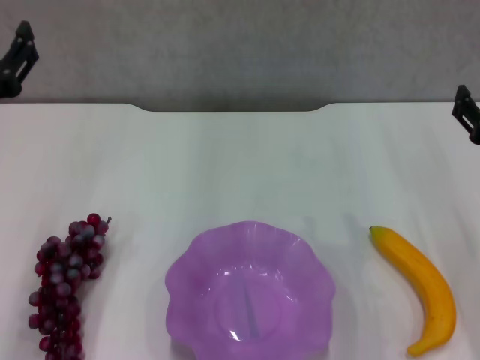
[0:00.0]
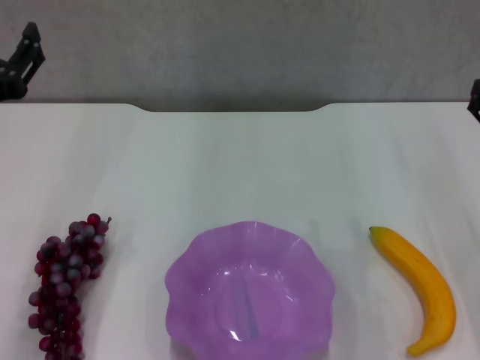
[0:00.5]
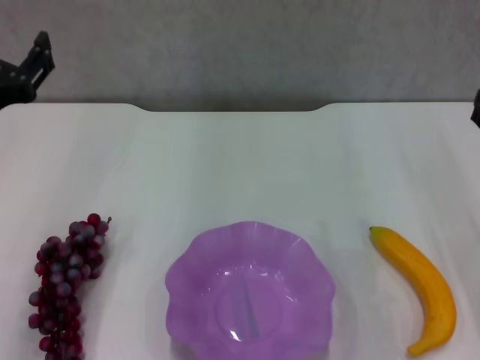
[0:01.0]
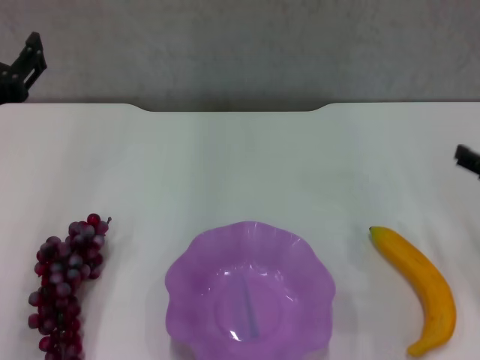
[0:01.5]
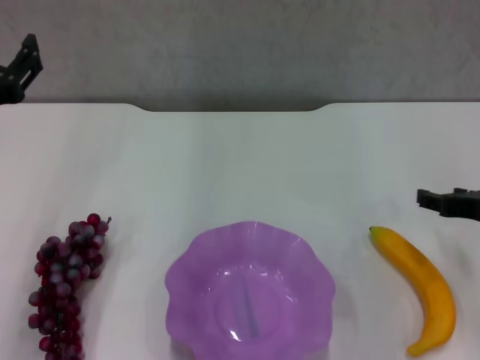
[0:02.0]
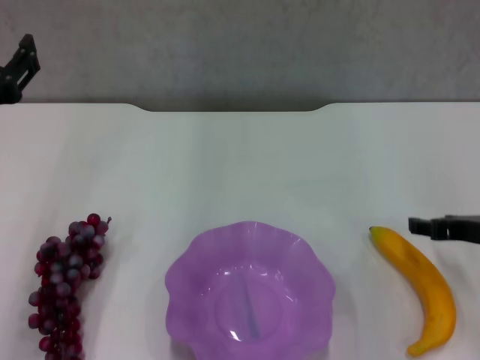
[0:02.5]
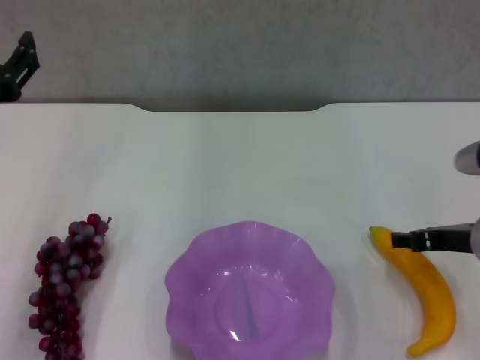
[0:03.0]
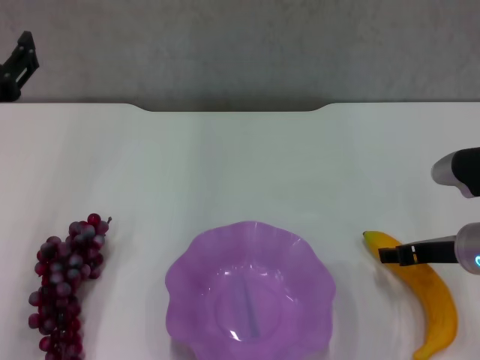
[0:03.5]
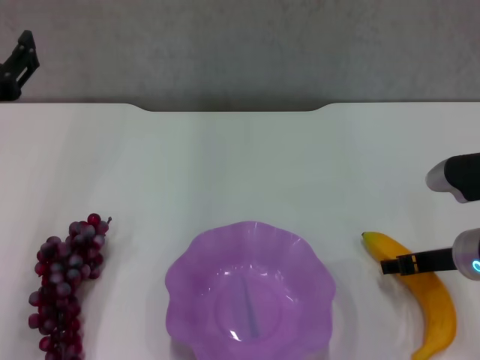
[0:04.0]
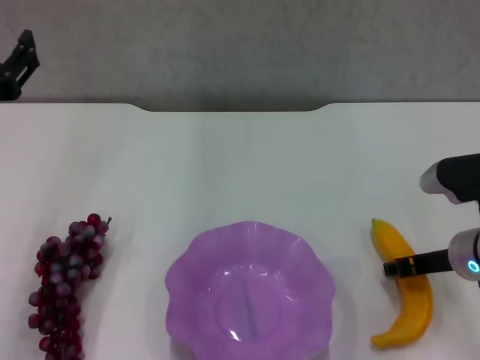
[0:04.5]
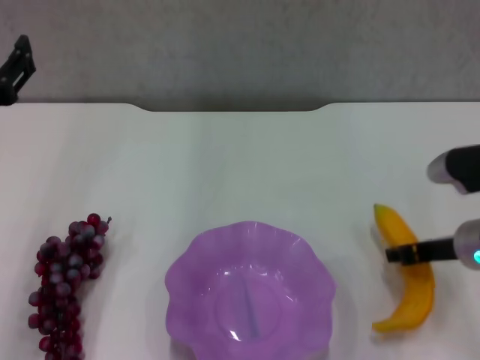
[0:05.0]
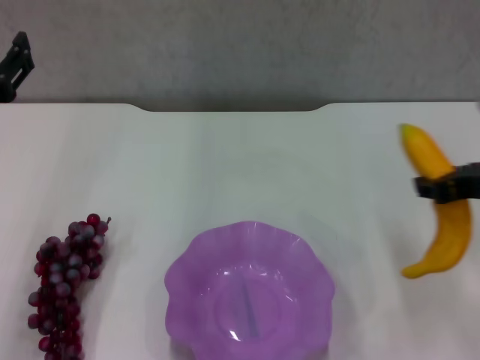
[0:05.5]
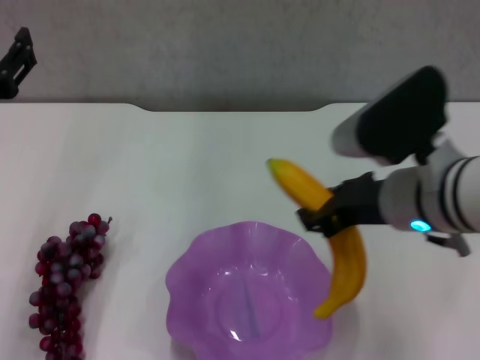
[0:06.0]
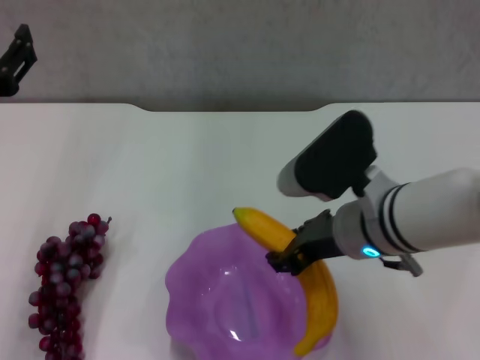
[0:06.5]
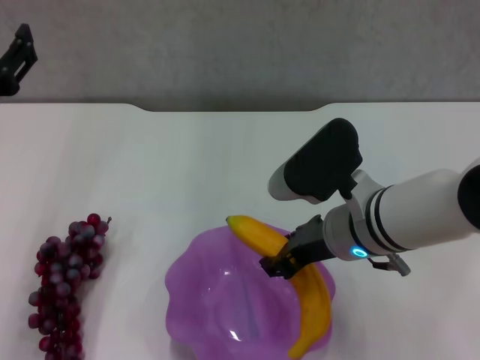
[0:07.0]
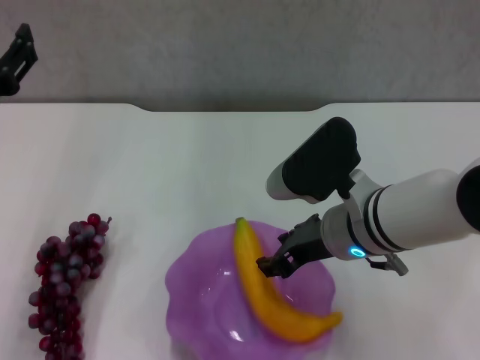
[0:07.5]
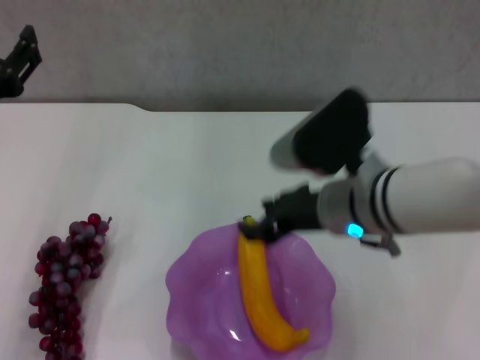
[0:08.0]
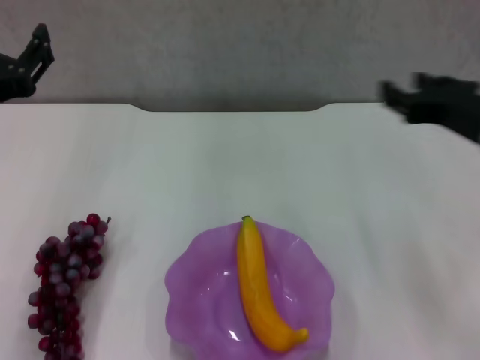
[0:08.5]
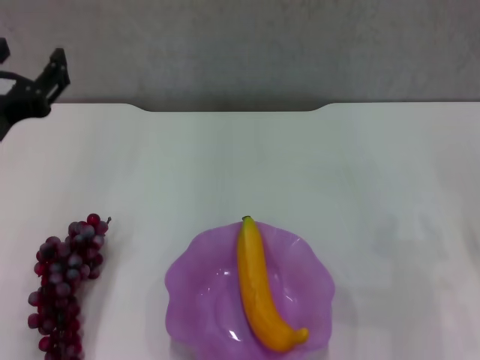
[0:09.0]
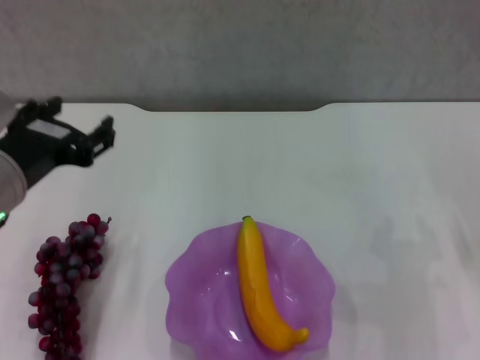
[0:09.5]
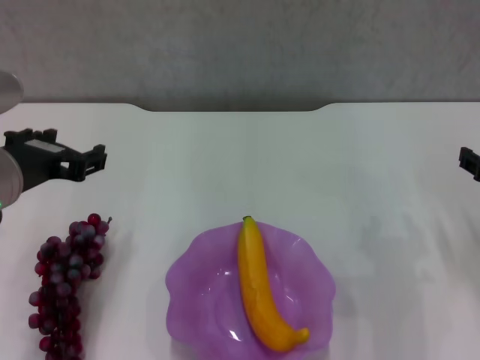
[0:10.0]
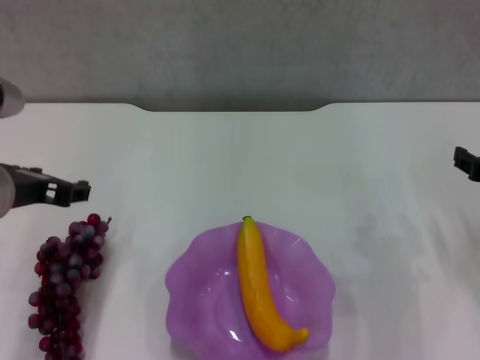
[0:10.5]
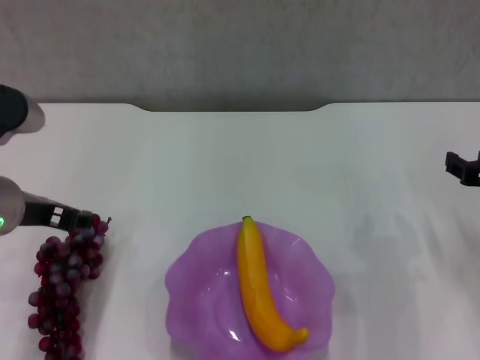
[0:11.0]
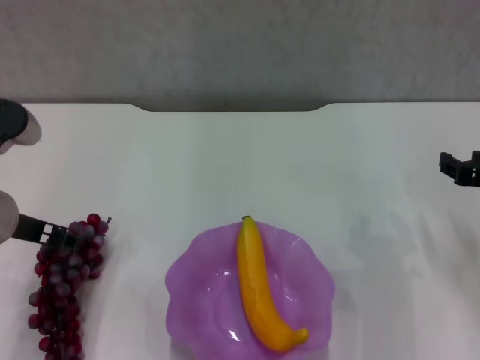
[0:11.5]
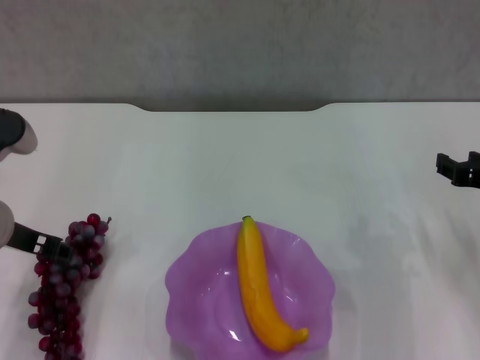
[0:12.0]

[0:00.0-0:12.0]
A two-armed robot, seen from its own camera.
Step, 0:00.0 to 0:04.0: Grasp the banana with right gripper.
Step, 0:05.0 to 0:07.5: Place the banana in the purple plate with right gripper.
0:02.0 to 0:04.0: The right gripper changes place by approximately 5 cm.
0:04.0 to 0:06.0: The right gripper shifts about 15 cm upward and to the left, and closes.
0:06.0 to 0:08.0: The right gripper changes place by roughly 5 cm.
0:08.0 to 0:10.0: The right gripper travels to the right by about 20 cm.
0:10.0 to 0:12.0: The left gripper ends up roughly 5 cm from where it was.

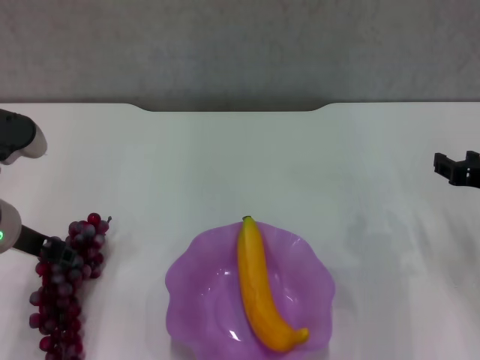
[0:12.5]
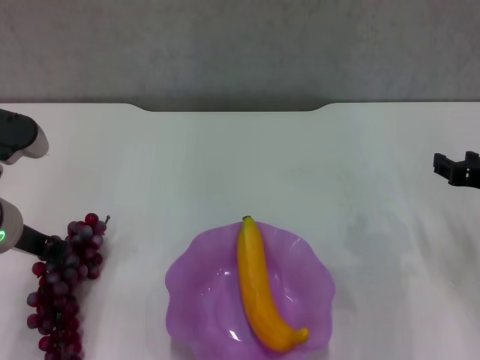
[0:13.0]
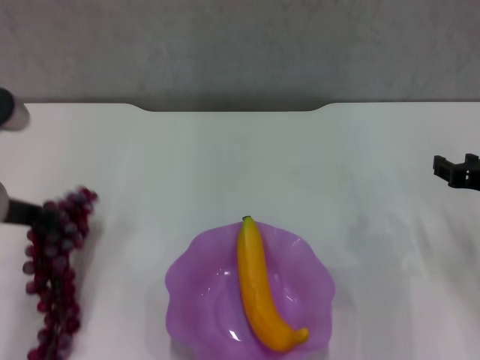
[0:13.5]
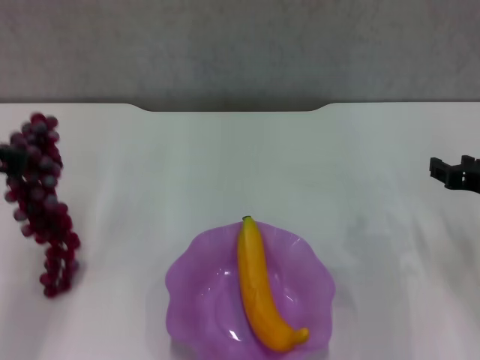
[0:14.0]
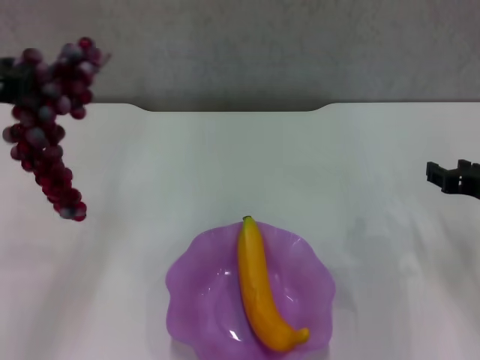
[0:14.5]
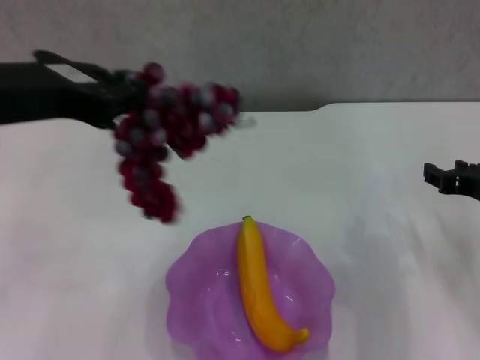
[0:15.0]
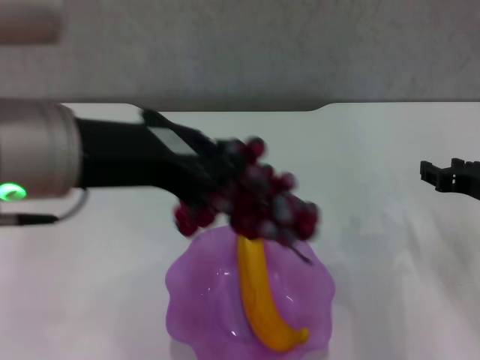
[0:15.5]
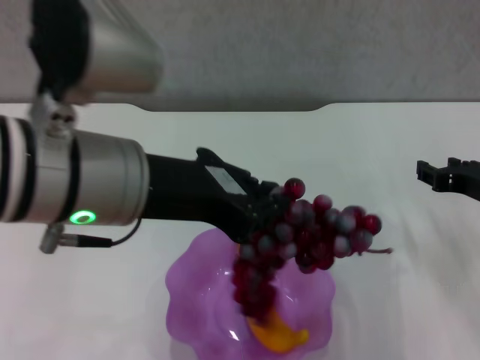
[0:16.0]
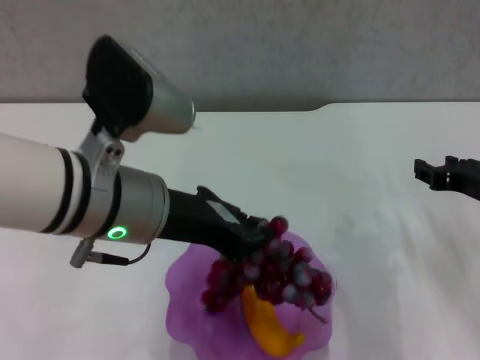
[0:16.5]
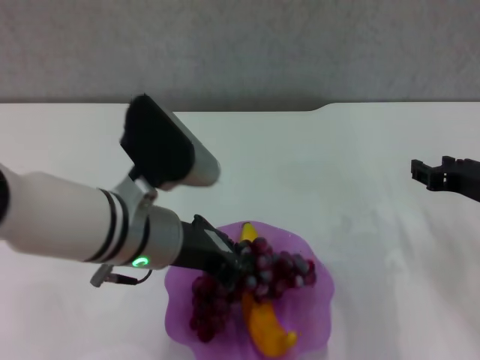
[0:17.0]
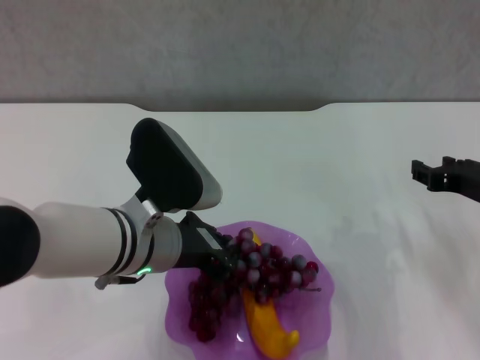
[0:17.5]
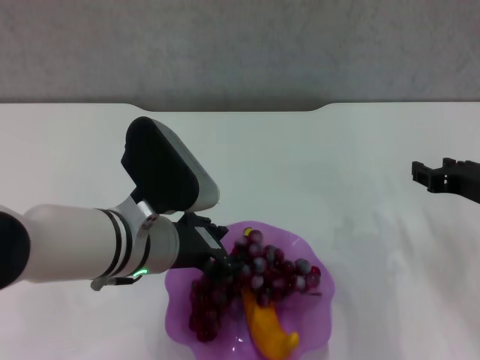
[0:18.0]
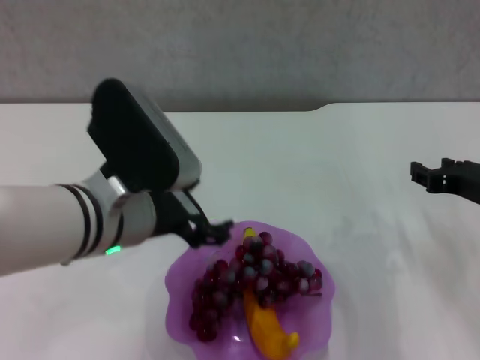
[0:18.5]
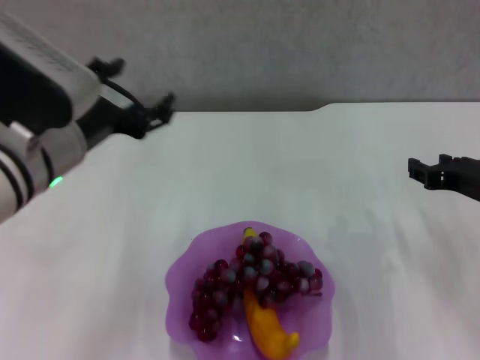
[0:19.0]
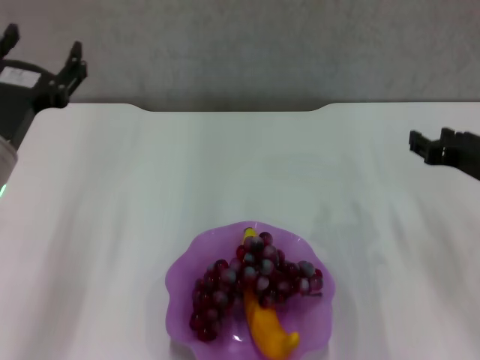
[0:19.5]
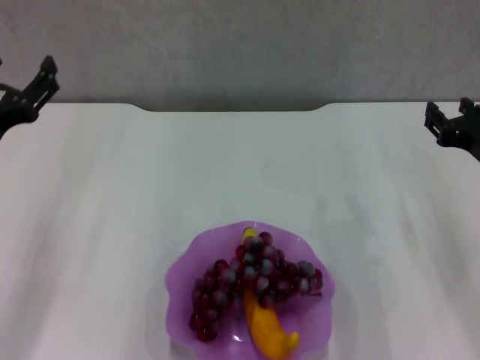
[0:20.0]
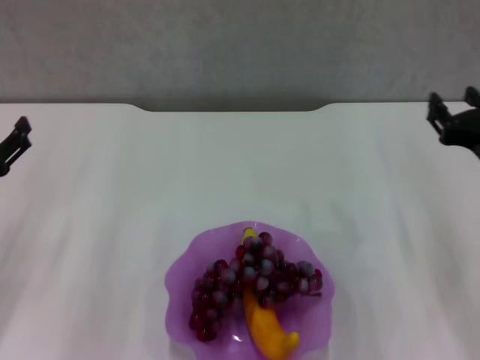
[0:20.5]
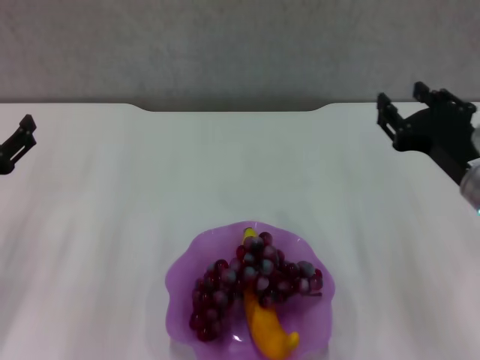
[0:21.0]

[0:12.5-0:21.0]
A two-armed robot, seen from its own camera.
Step, 0:13.5 to 0:18.0: Place the grape in the purple plate with left gripper.
0:12.5 to 0:14.5: The left gripper goes approximately 15 cm upward, and closes its fingers.
0:14.5 to 0:16.5: The left gripper shifts roughly 15 cm to the right and downward.
0:16.5 to 0:19.0: The left gripper goes approximately 5 cm to the left, reaches some 10 cm downward, then returns, and opens.
0:19.0 to 0:21.0: The right gripper is displaced to the left by about 5 cm. Meanwhile the left gripper goes some 20 cm to the left and downward.
